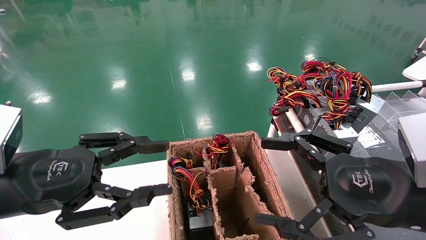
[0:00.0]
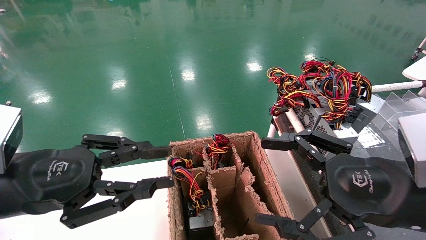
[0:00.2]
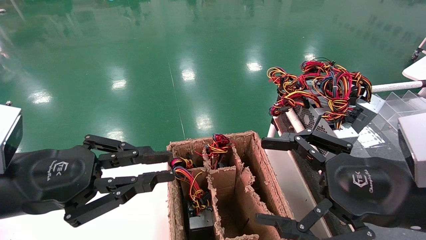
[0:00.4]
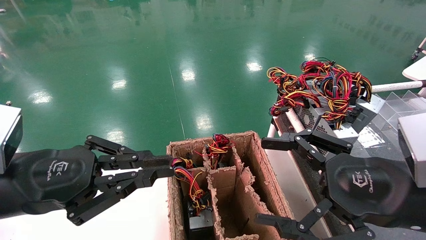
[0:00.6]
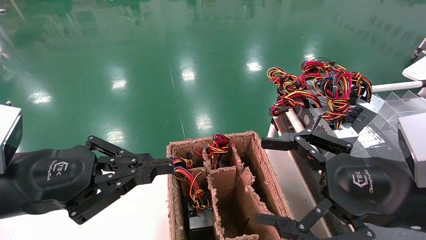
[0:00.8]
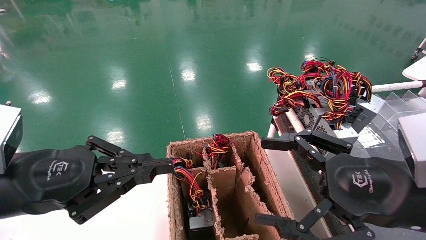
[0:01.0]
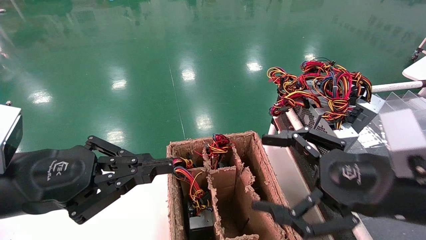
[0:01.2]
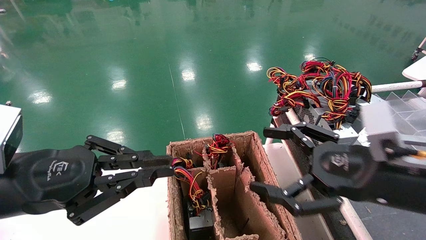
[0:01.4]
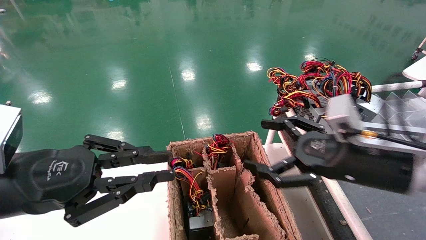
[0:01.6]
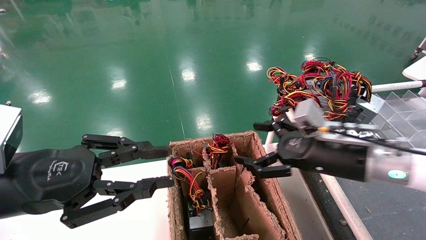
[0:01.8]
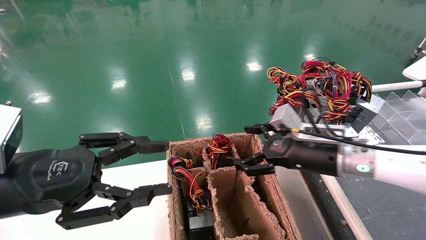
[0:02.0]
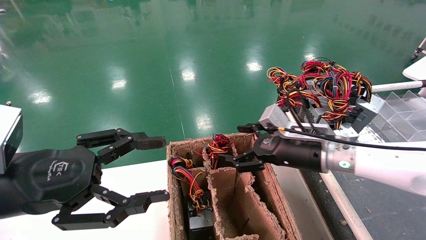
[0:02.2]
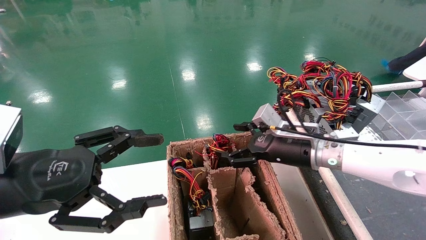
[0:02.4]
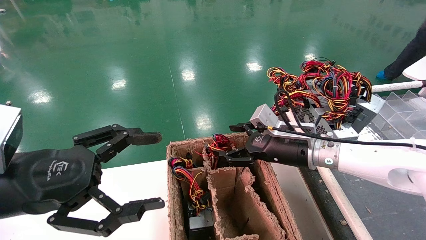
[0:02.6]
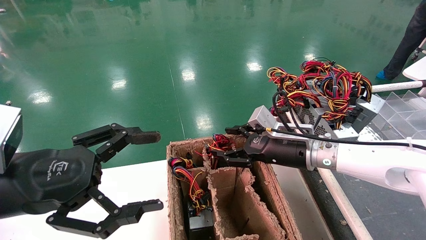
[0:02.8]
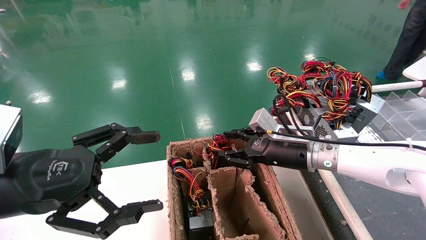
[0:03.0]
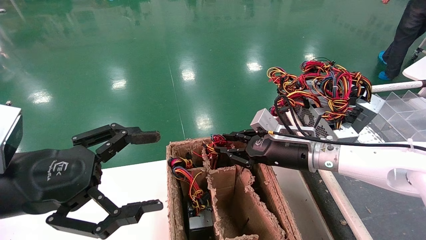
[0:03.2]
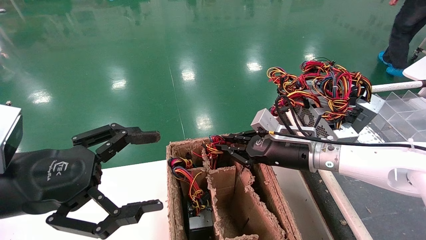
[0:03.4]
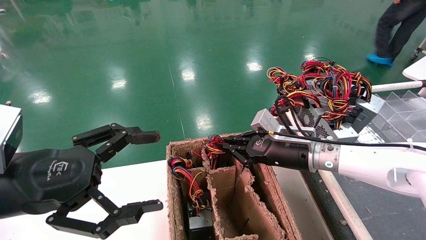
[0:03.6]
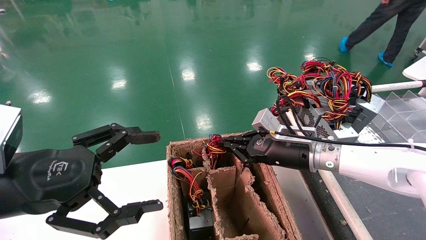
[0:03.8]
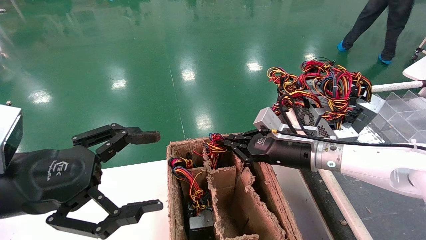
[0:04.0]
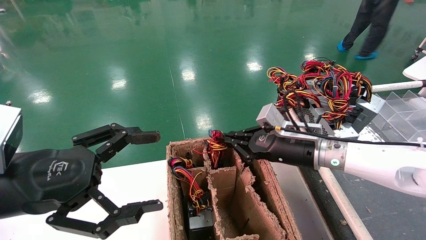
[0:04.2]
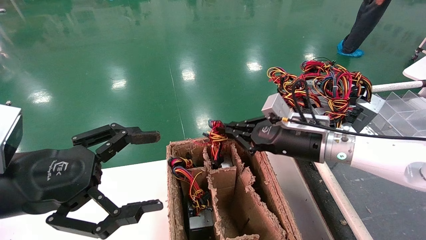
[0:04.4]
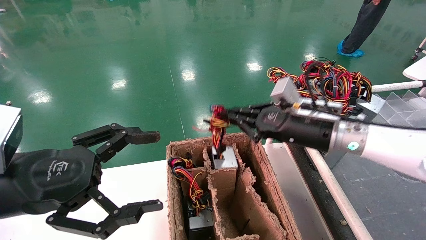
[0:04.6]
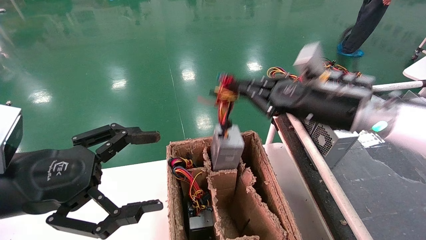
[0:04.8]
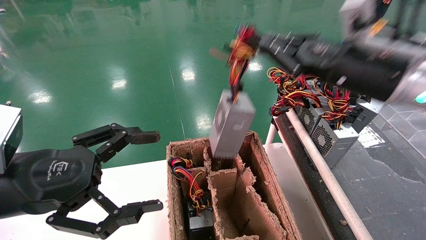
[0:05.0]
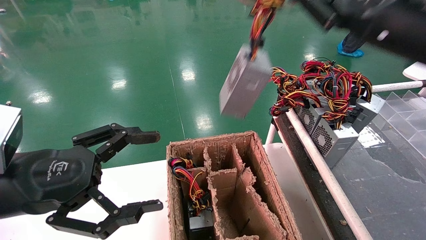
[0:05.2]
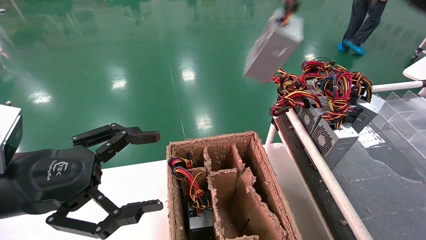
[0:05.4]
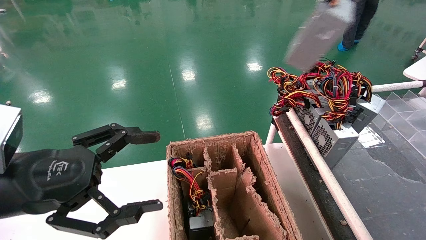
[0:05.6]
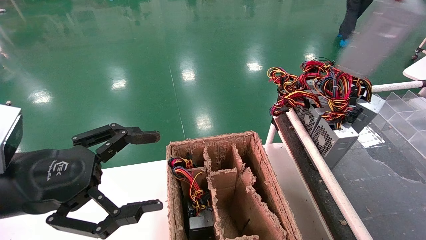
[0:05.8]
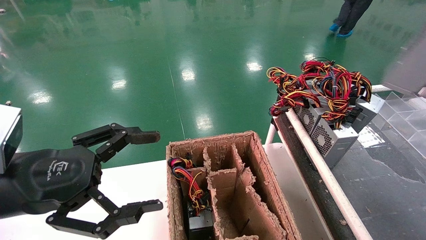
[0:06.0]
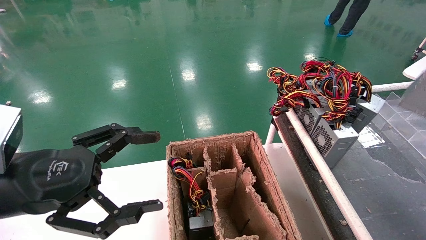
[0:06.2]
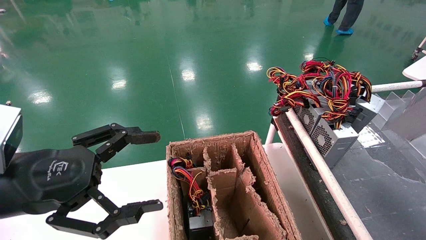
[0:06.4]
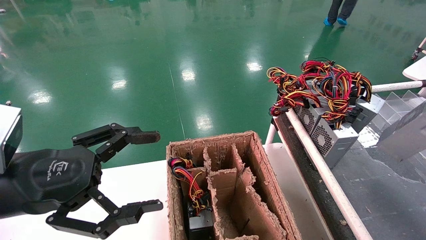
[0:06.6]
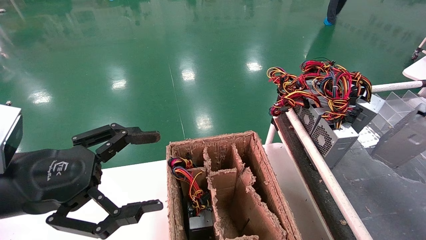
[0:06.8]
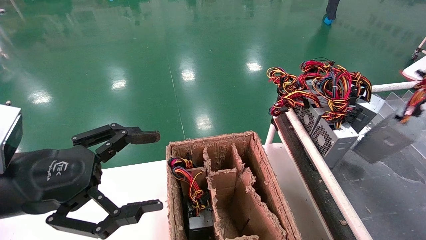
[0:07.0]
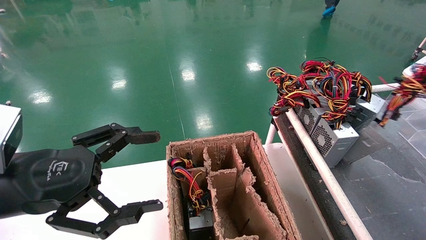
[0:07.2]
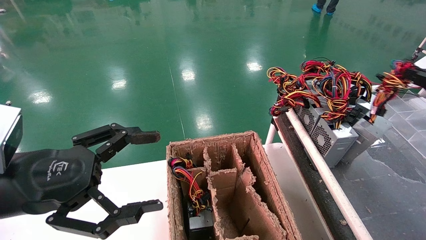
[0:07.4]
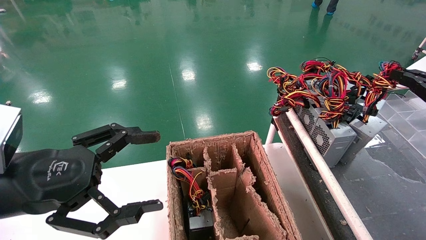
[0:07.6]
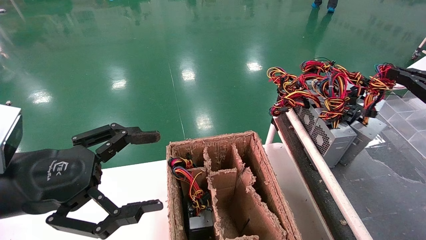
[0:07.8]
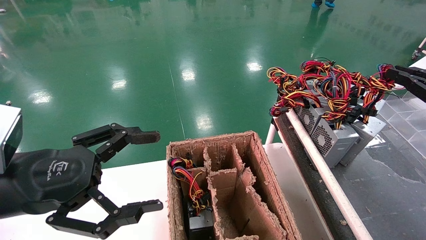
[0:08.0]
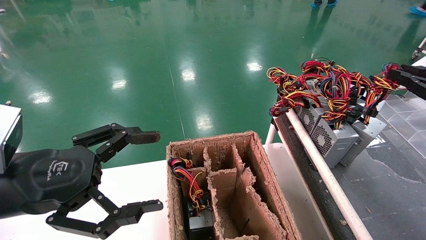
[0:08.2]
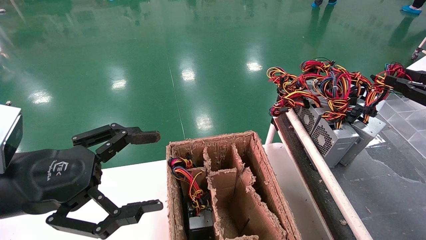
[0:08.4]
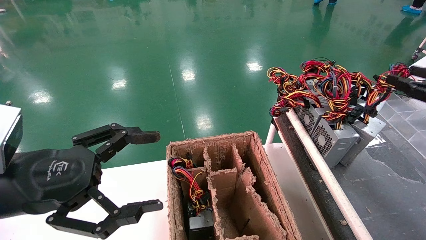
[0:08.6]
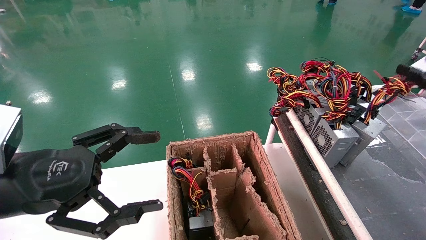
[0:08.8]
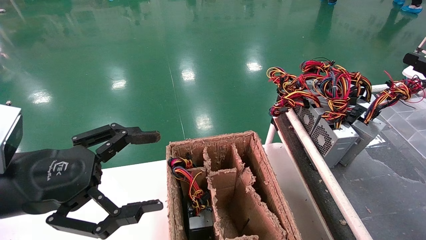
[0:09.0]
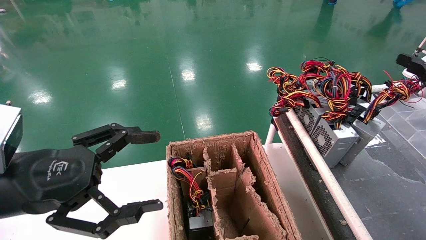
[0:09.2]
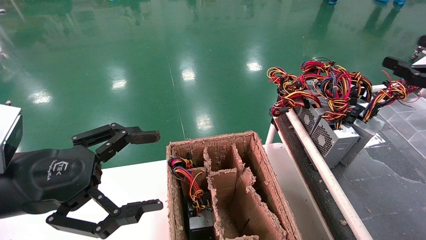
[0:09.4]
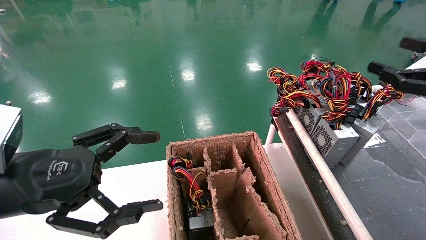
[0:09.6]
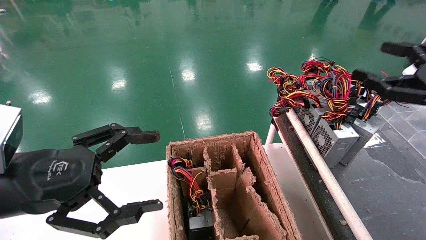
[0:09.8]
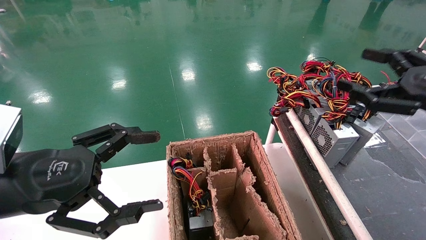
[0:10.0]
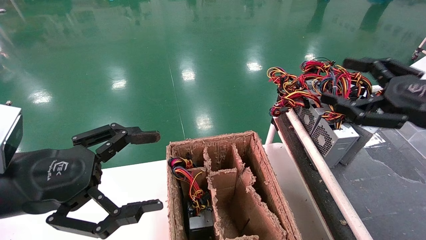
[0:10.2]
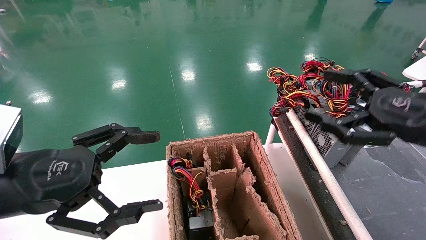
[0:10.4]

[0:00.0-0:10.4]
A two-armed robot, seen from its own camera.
Step, 0:01.0 to 0:03.6: Grab and lift the power supply from the large box.
Step, 0:03.8 to 0:07.8: Place the power supply on the operating table.
0:00.0 to 0:01.4: The left gripper closes; the right gripper moves forward, roughly 5 cm.
0:01.4 to 0:03.0: The left gripper opens its fingers, while the right gripper shifts some 20 cm forward and to the left, and closes.
0:03.0 to 0:04.4: The right gripper closes up.
0:04.4 to 0:06.0: The right gripper shifts some 40 cm to the right, upward and backward.
0:06.0 to 0:07.4: The right gripper heads downward and forward, covering about 15 cm.
0:07.4 to 0:09.0: The right gripper opens up.
0:09.0 to 0:10.4: The right gripper moves to the left, some 15 cm.
